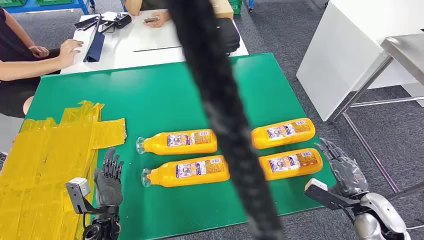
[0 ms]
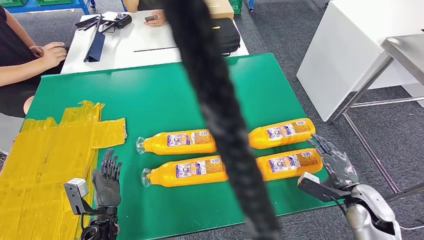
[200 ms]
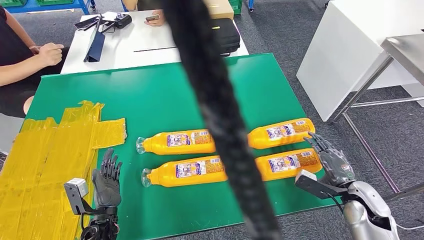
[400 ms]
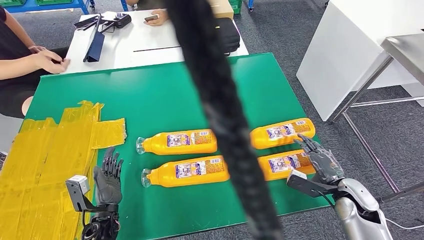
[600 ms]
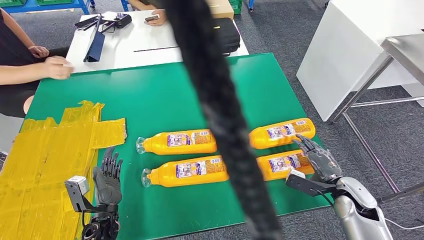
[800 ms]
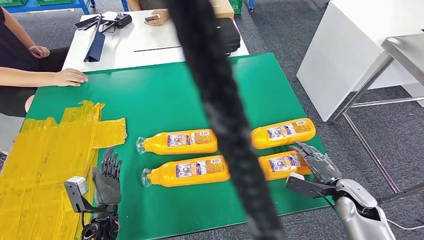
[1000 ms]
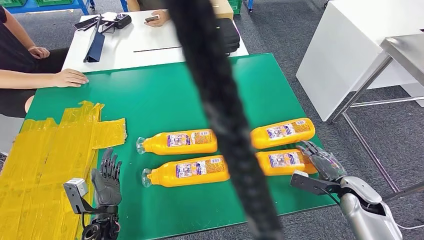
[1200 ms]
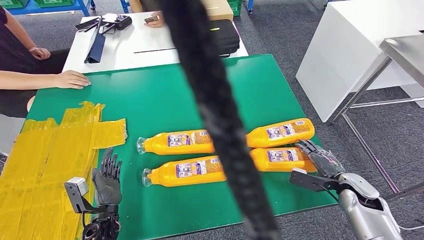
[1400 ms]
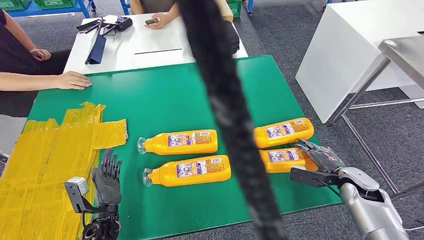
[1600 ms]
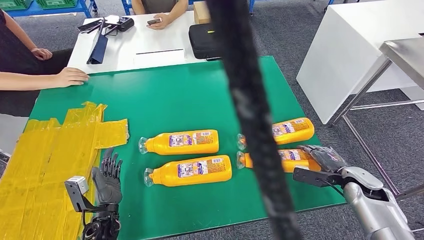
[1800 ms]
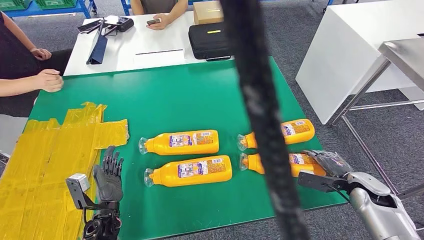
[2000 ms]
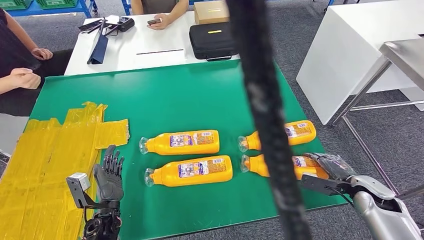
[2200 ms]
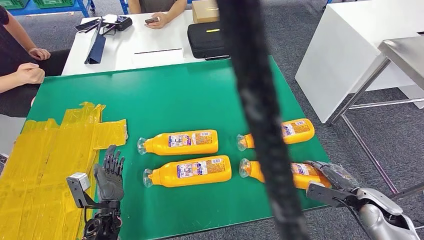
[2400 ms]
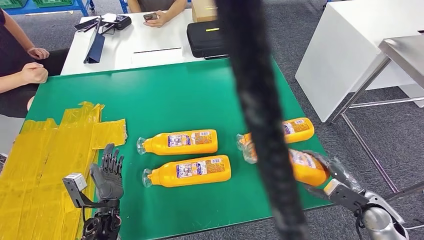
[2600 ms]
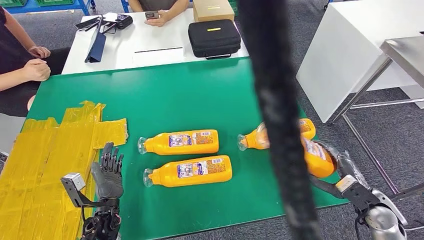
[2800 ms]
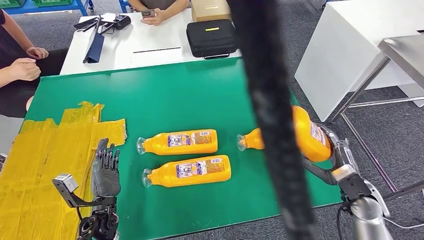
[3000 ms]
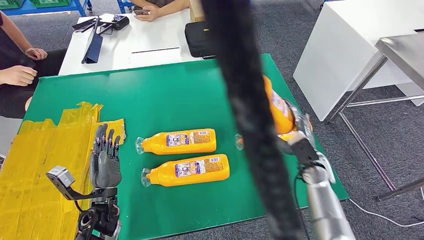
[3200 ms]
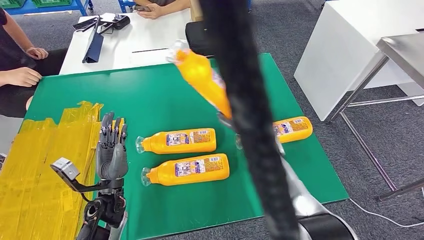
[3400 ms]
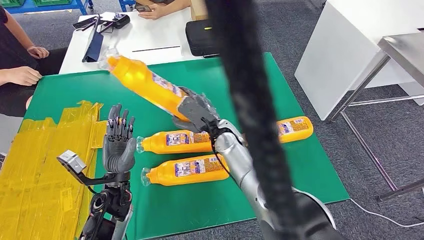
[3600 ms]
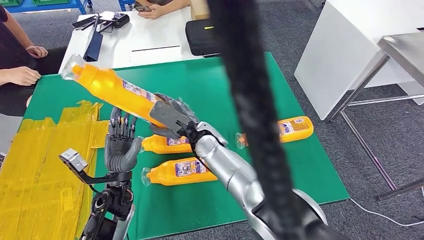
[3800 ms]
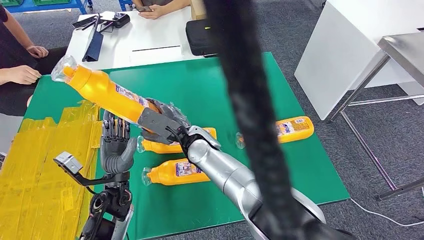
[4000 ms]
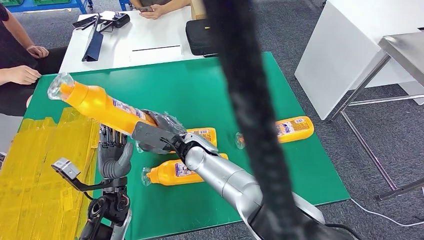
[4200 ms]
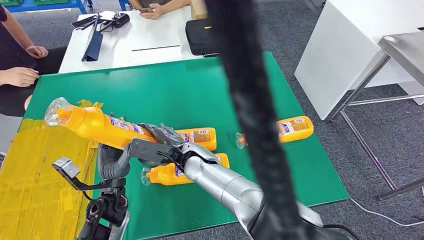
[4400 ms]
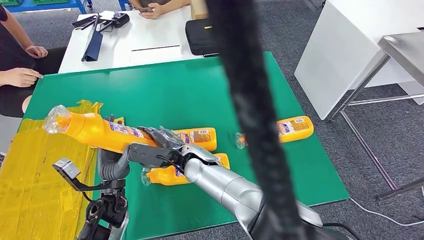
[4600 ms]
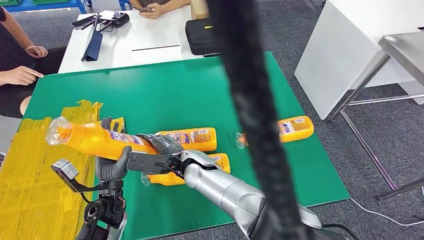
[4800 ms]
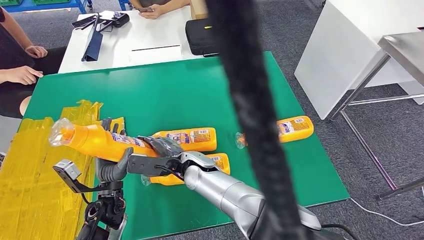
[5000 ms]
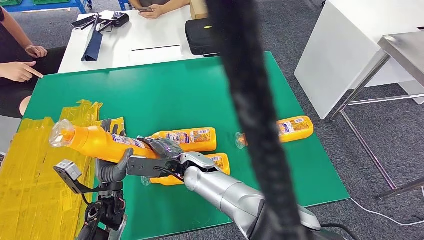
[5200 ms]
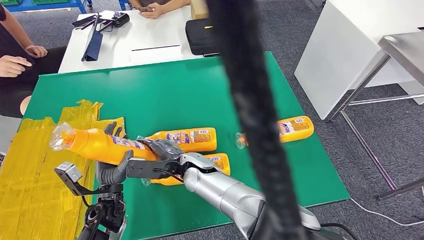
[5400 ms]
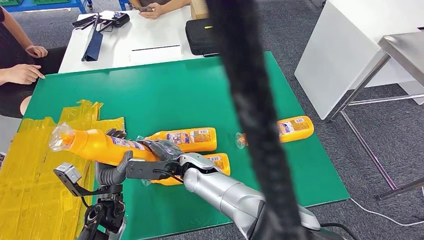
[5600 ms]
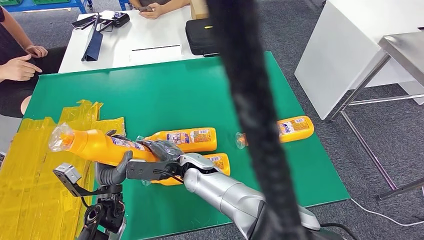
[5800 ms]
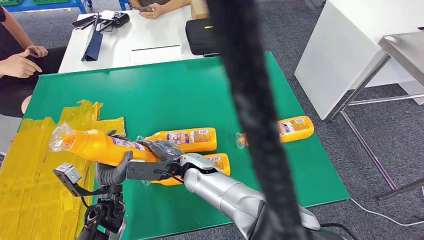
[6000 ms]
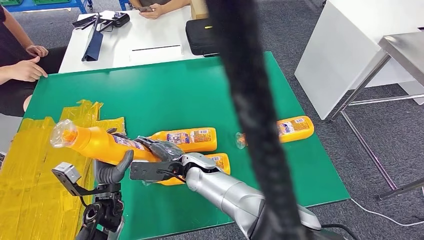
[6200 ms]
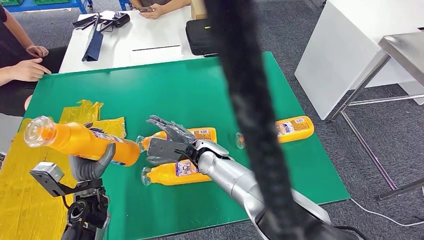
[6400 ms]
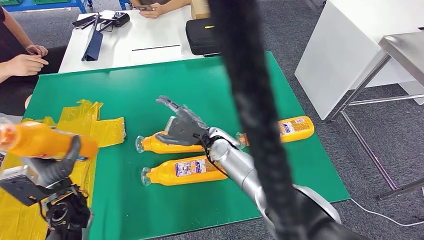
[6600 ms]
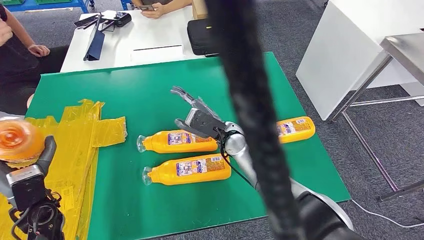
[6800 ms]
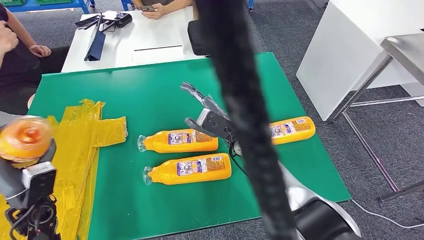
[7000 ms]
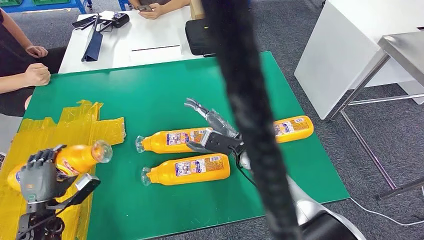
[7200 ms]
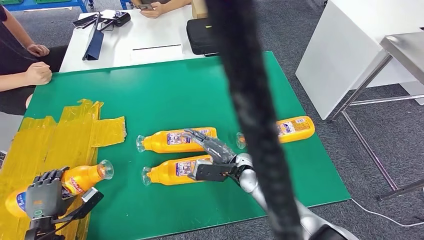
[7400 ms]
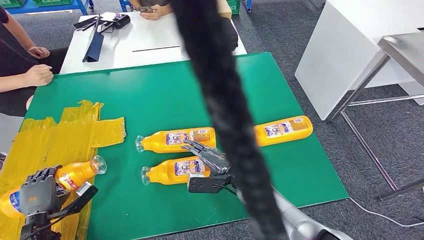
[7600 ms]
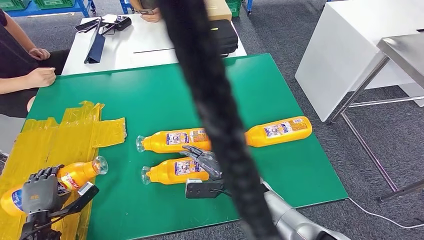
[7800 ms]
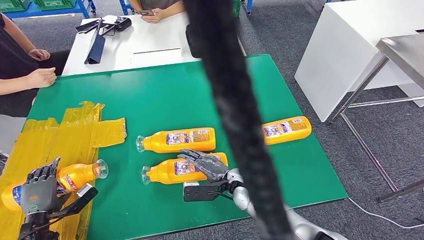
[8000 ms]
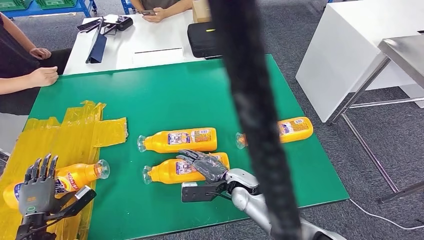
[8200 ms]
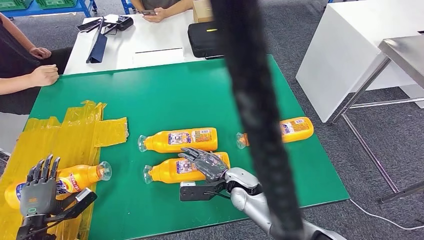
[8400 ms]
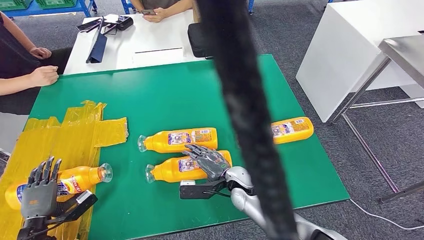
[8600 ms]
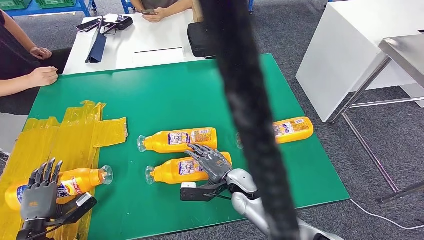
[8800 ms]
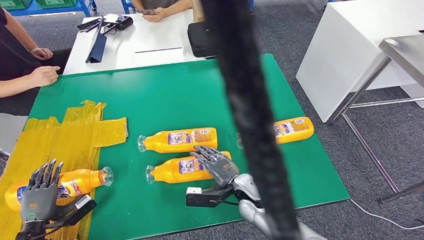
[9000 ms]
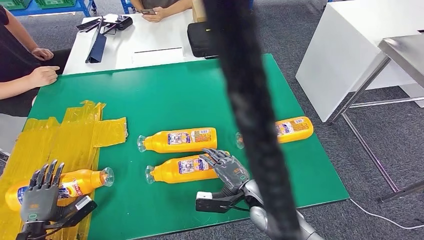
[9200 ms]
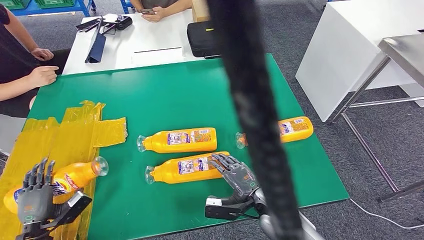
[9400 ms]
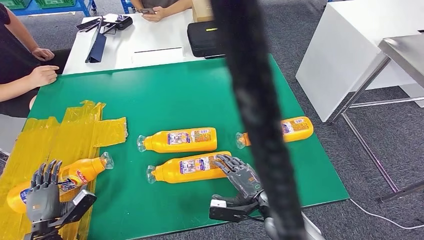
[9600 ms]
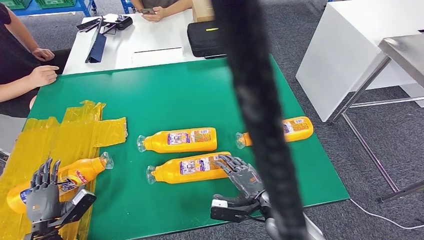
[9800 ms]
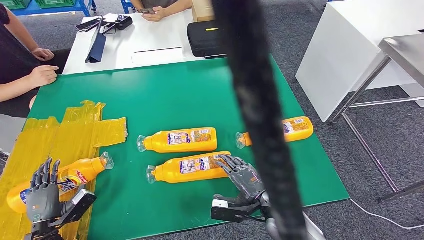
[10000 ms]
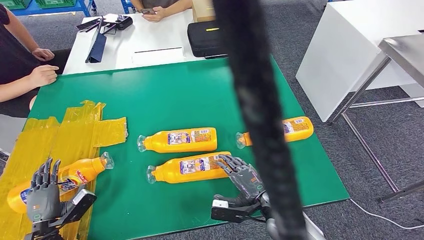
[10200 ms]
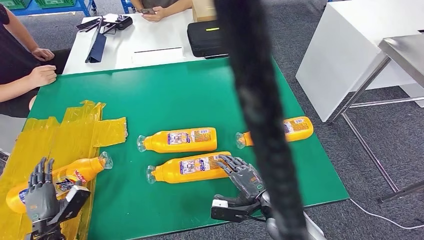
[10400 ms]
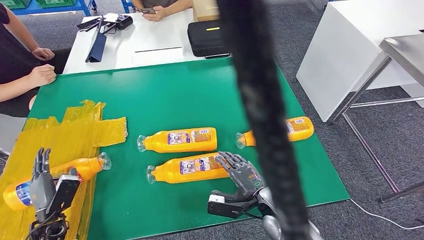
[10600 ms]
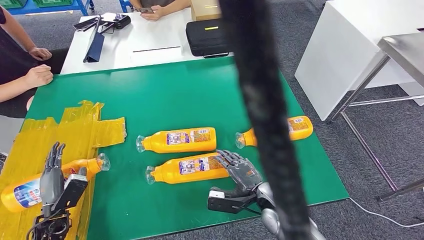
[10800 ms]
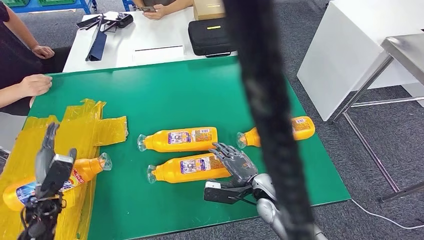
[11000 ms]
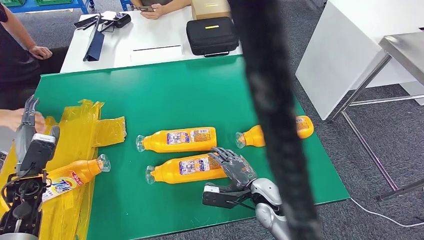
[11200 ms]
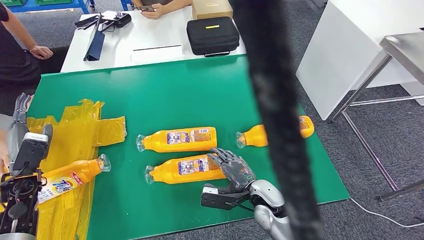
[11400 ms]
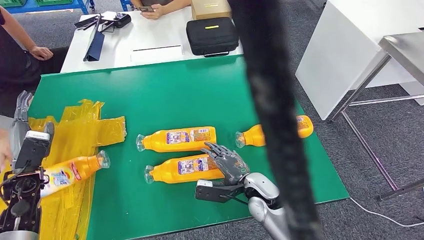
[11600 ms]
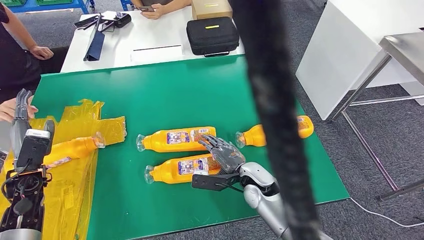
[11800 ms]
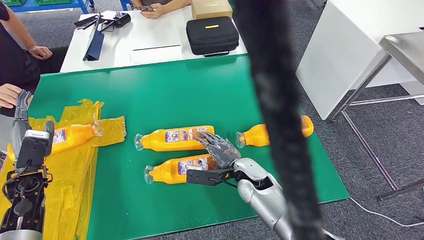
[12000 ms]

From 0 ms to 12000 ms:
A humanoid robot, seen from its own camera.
Step, from 0 ms to 4200 ms: Take the fast-moving consumer goods bottle from the table.
Step, from 4400 ms to 8800 ms: Flip the fast-moving consumer goods bottle to the front side.
From 4400 ms to 6000 ms: The hands move only a little.
From 9000 ms to 10400 ms: The right hand heads to the right and backward, covering about 10 cm.

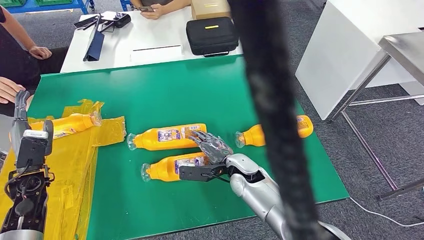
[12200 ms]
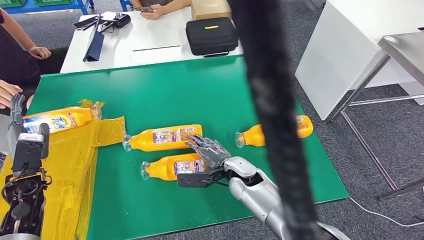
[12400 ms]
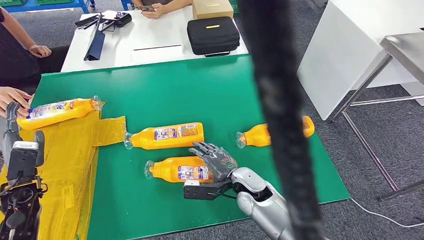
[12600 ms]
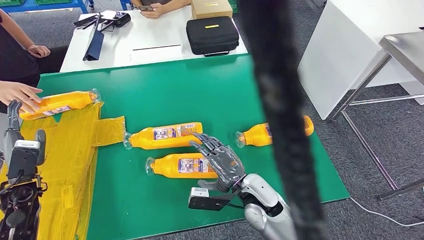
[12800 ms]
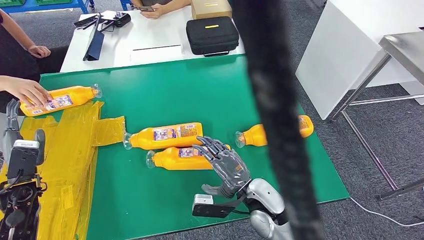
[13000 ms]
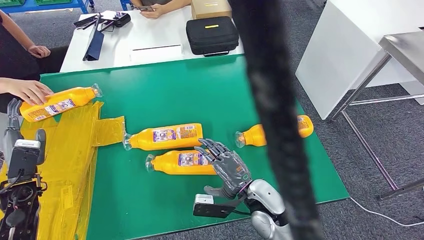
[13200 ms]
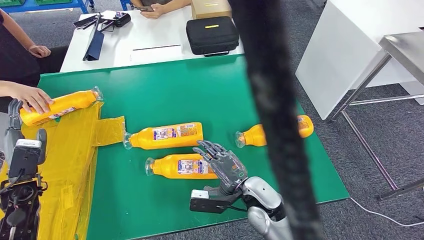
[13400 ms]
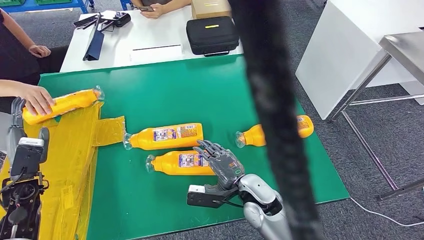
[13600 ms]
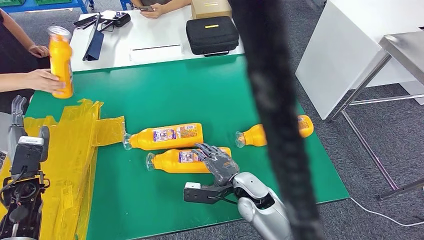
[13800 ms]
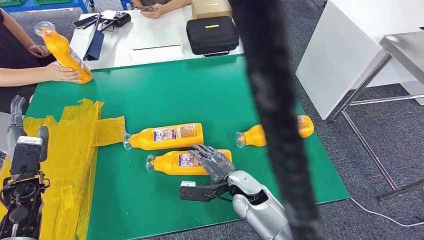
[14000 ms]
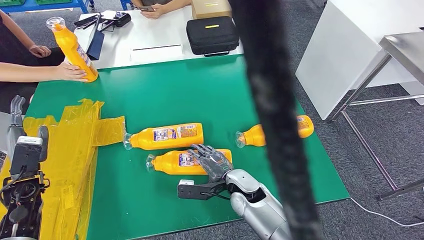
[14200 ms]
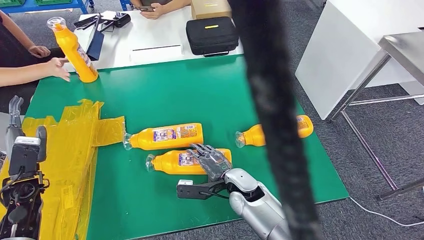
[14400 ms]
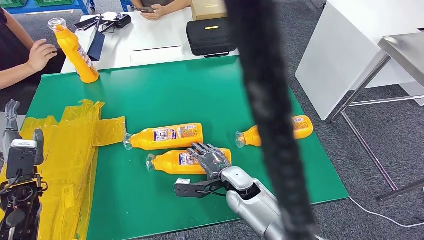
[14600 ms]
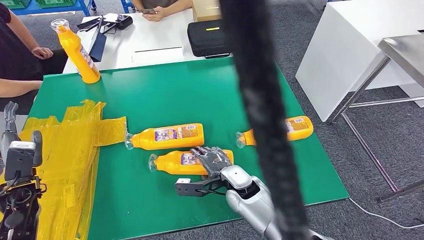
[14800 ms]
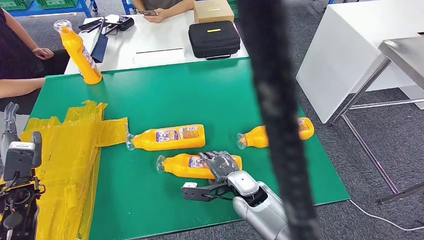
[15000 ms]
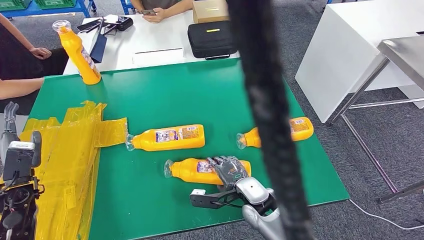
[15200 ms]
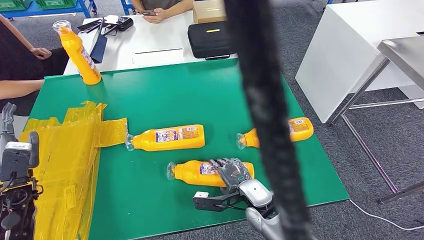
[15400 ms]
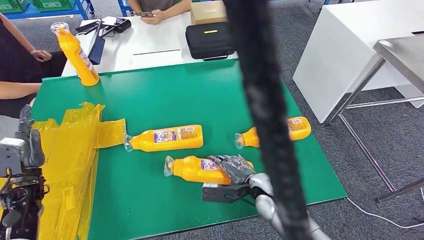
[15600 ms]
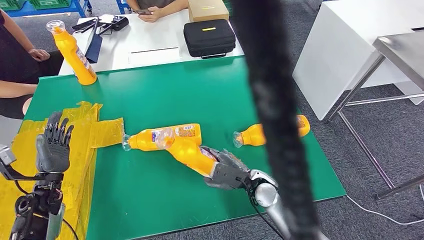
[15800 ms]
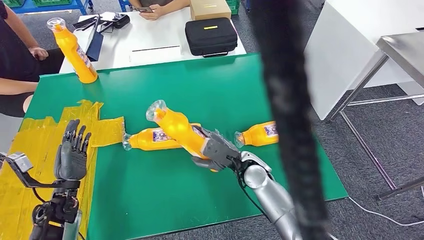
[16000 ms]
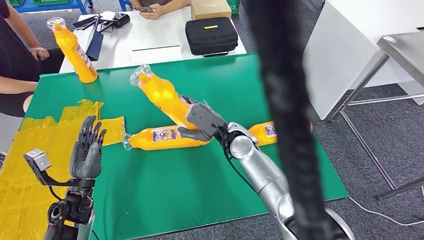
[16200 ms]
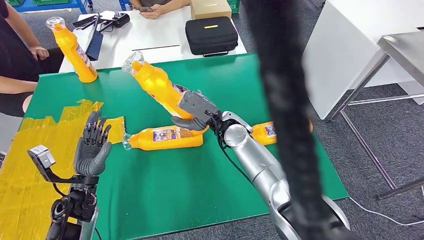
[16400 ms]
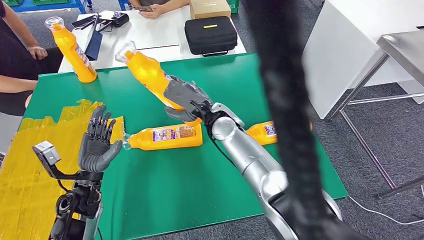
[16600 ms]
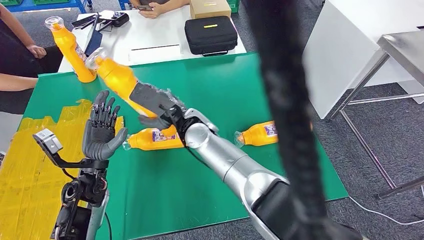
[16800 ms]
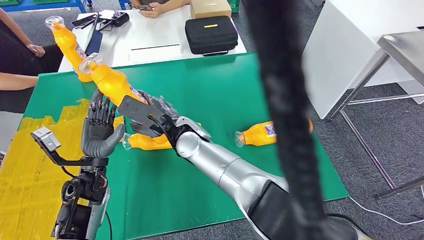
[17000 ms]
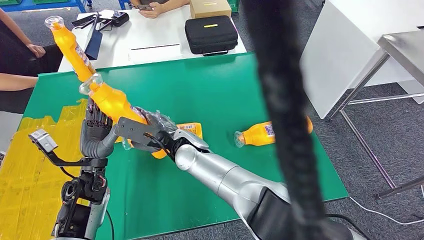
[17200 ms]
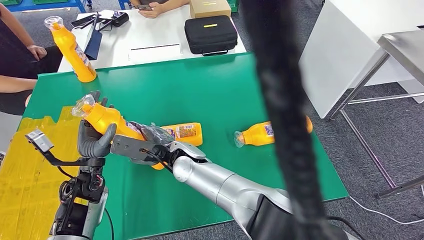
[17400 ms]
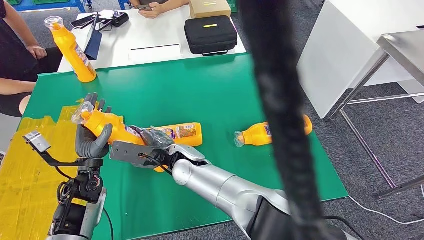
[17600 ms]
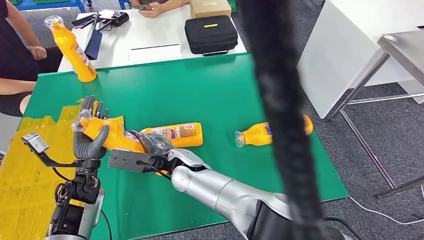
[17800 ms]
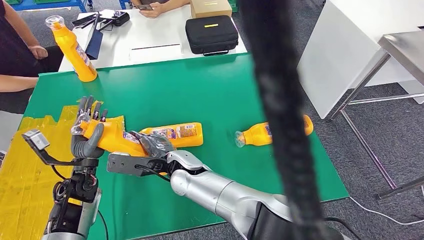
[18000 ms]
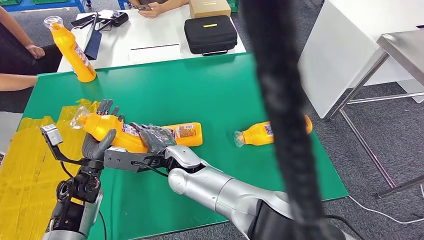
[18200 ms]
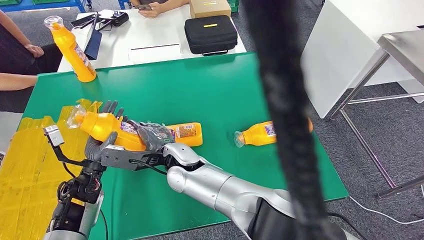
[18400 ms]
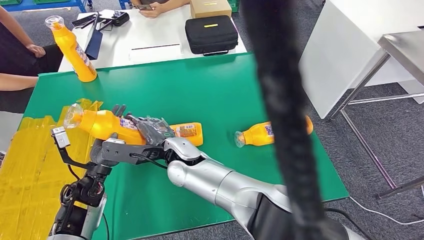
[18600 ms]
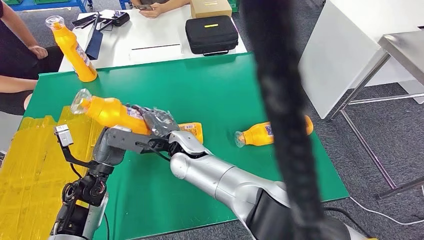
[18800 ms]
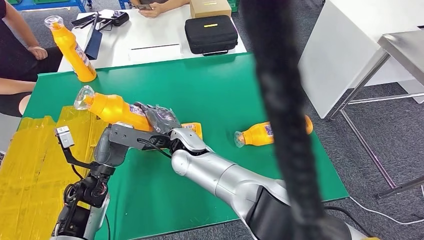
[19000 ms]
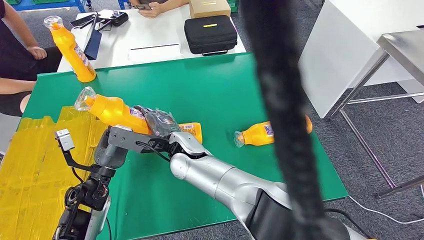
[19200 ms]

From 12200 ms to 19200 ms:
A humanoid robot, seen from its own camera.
Step, from 12200 ms to 16400 ms: Pick up the fast-moving consumer goods bottle from the table.
From 12200 ms to 13600 ms: The right hand travels backward by some 5 cm.
